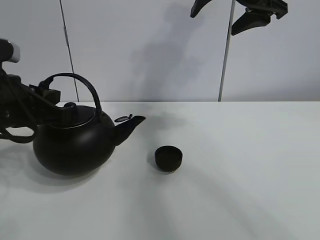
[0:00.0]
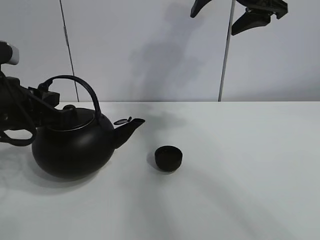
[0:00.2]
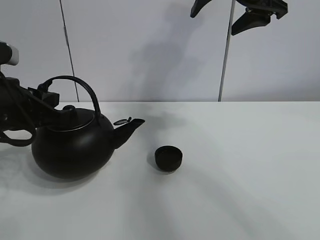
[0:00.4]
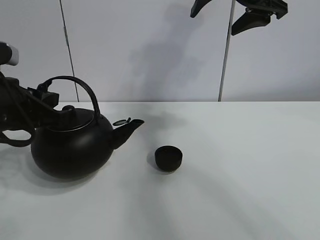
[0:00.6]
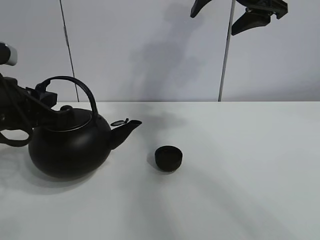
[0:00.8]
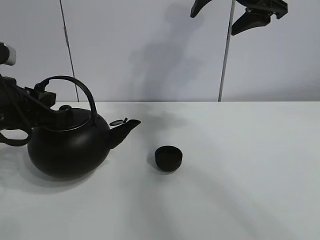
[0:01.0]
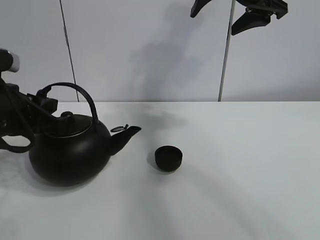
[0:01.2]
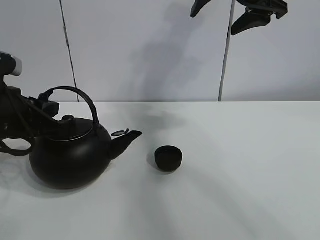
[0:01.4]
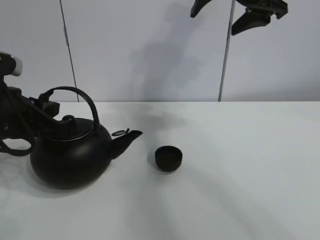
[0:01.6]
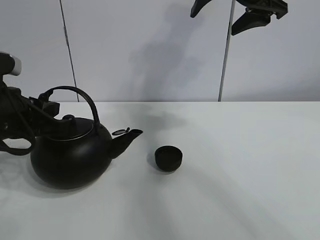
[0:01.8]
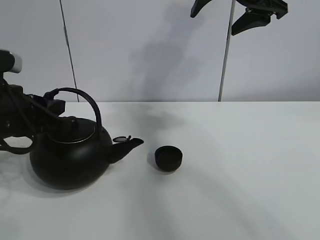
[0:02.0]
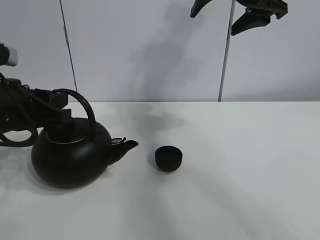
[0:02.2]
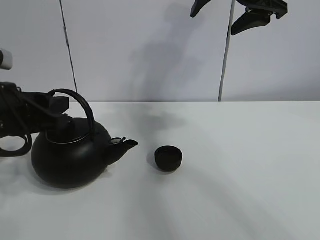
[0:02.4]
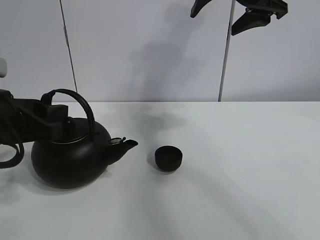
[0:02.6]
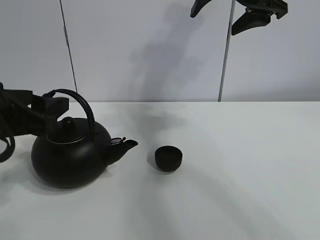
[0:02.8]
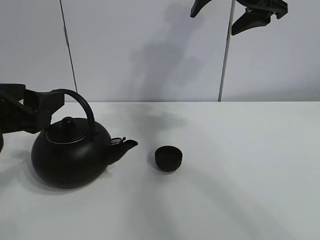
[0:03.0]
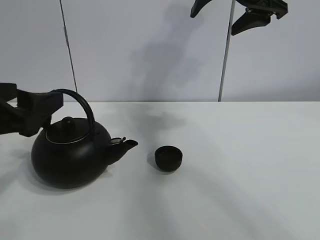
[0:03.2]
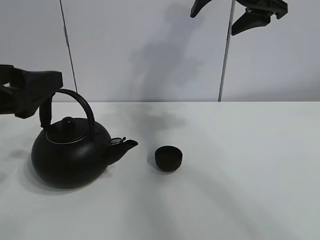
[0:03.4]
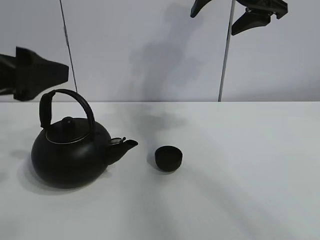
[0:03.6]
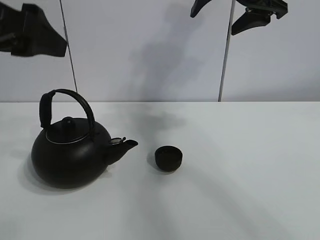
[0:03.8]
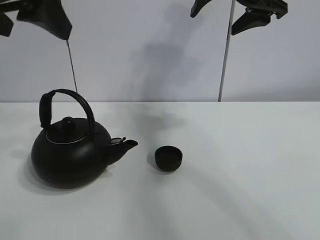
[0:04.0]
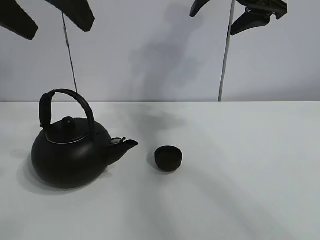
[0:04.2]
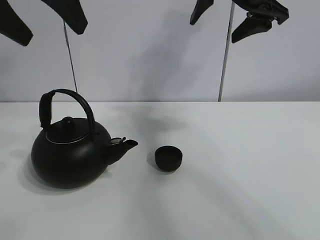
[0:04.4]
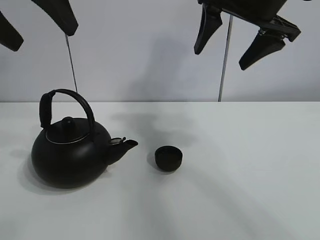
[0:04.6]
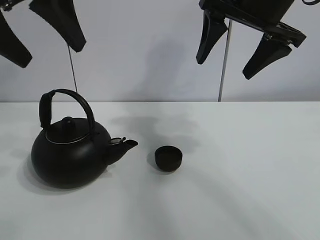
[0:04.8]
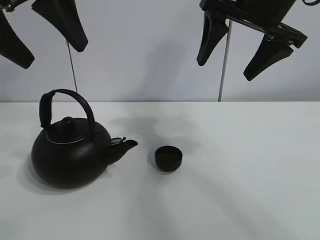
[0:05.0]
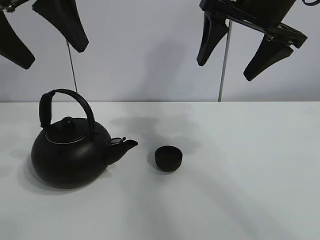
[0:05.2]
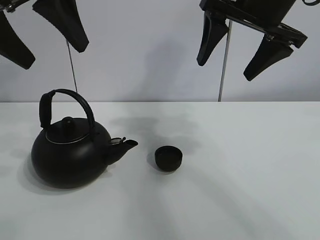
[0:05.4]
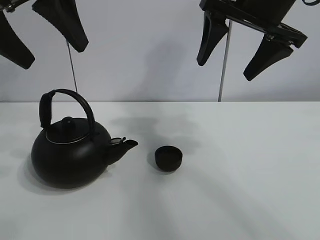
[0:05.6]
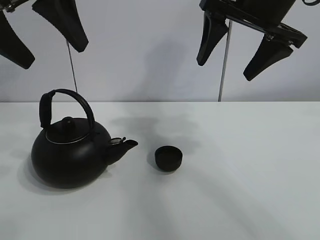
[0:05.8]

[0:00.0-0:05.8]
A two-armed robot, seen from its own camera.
Task of the whole recording: pour tea into the teacup.
0:00.0 to 0:01.4: There are only small adjustments of the grippers.
0:01.4 to 0:02.8: The left gripper opens up.
0:02.8 to 0:04.4: The left gripper moves upward, approximately 20 cm.
